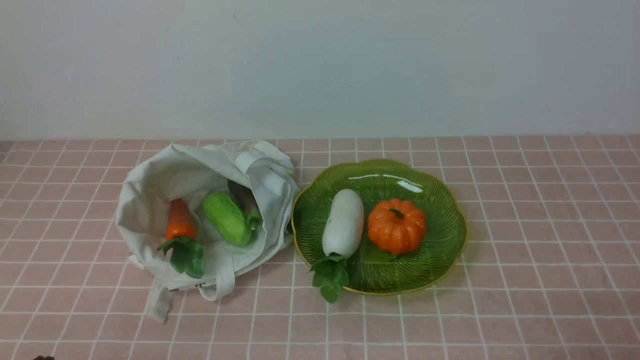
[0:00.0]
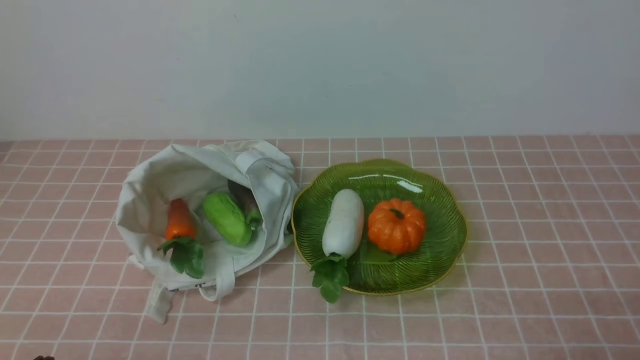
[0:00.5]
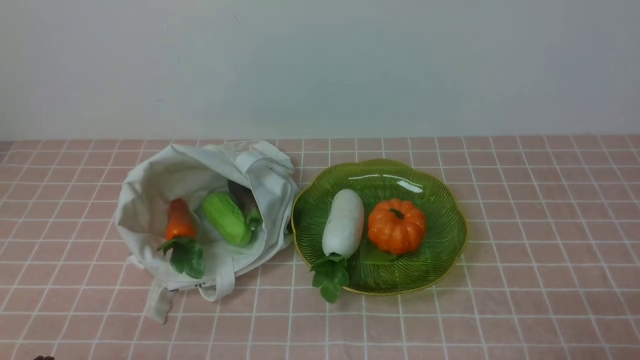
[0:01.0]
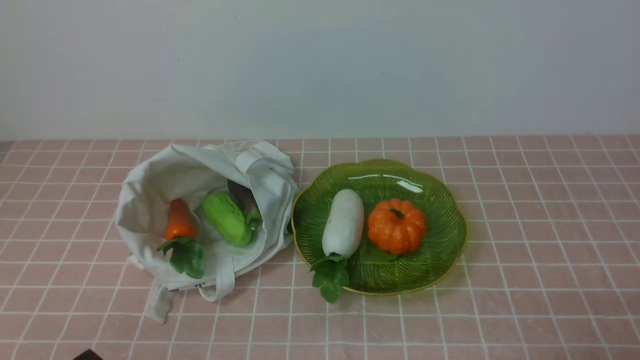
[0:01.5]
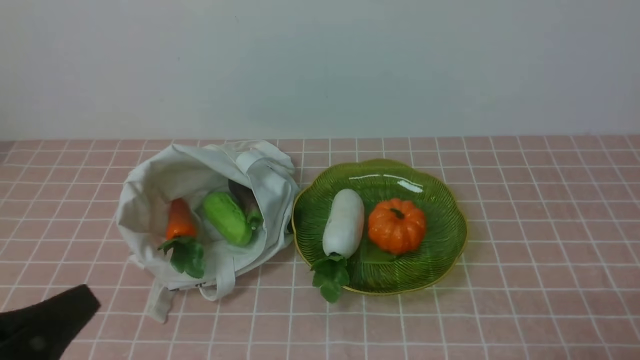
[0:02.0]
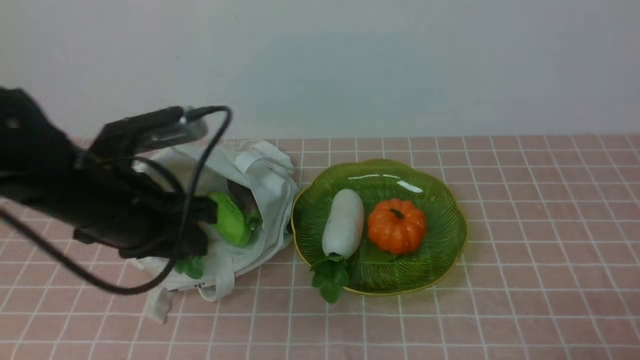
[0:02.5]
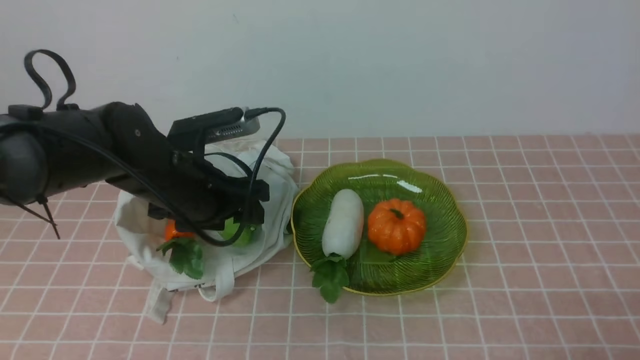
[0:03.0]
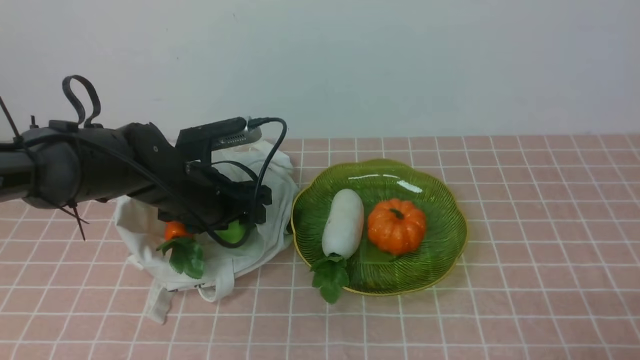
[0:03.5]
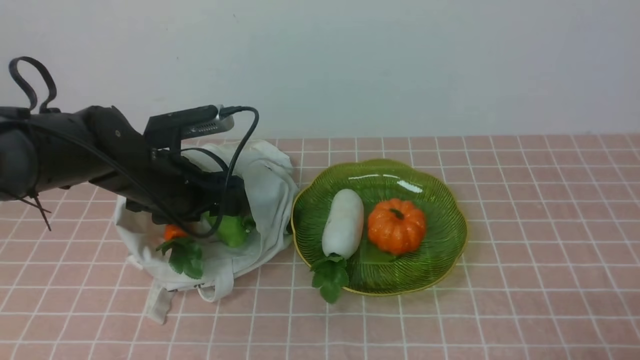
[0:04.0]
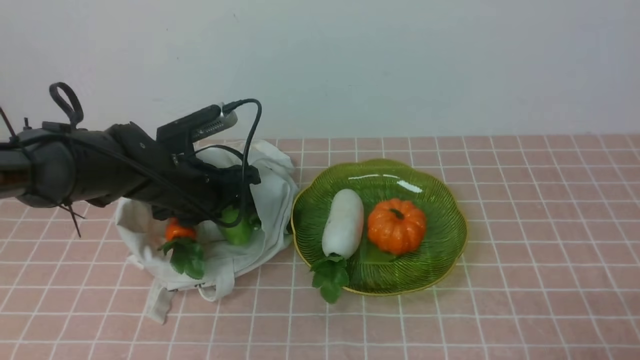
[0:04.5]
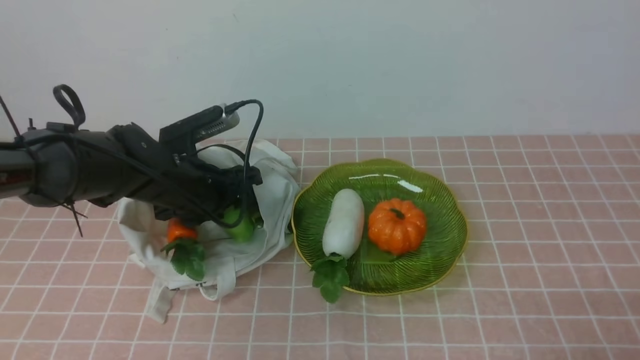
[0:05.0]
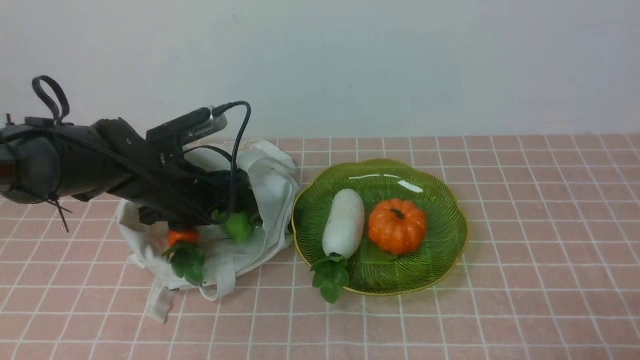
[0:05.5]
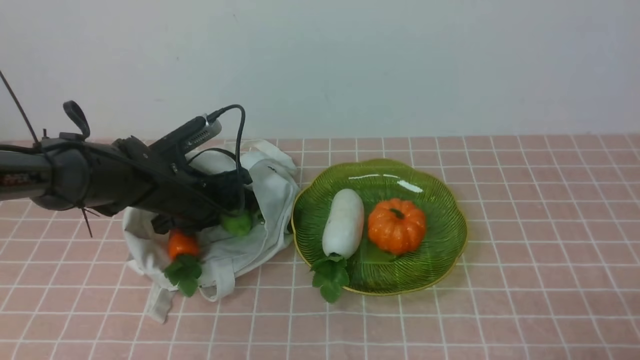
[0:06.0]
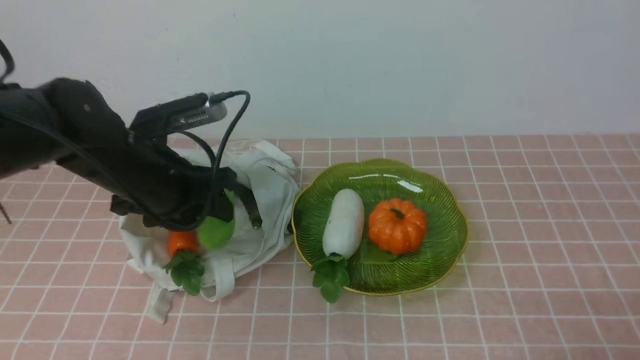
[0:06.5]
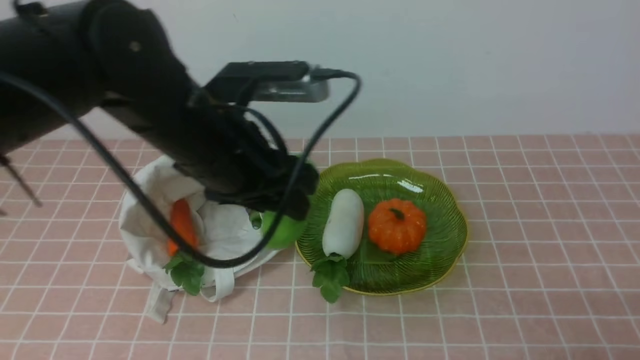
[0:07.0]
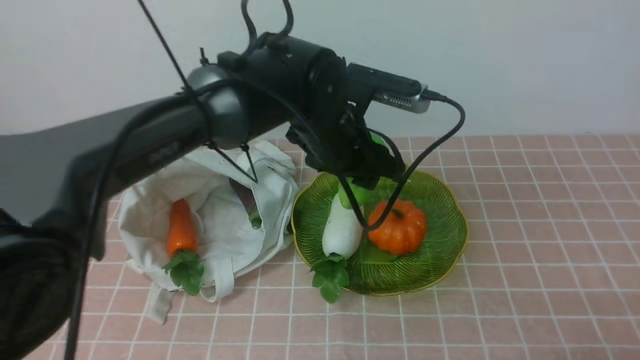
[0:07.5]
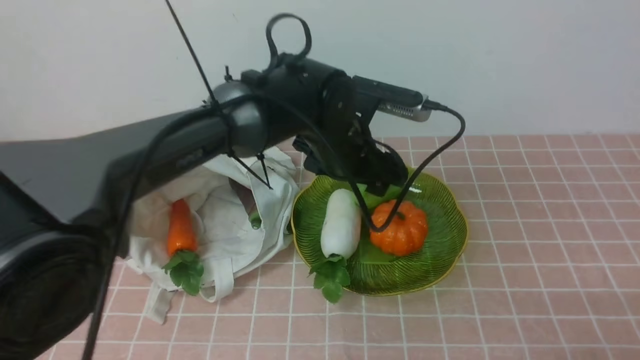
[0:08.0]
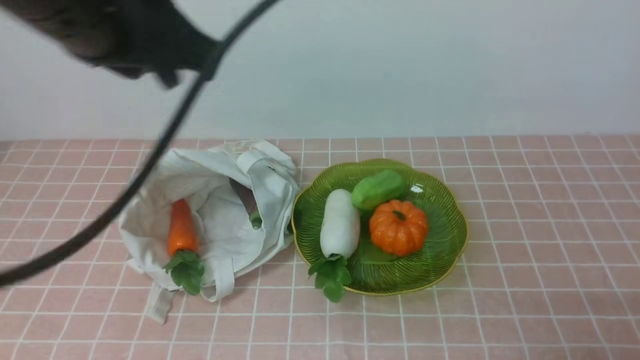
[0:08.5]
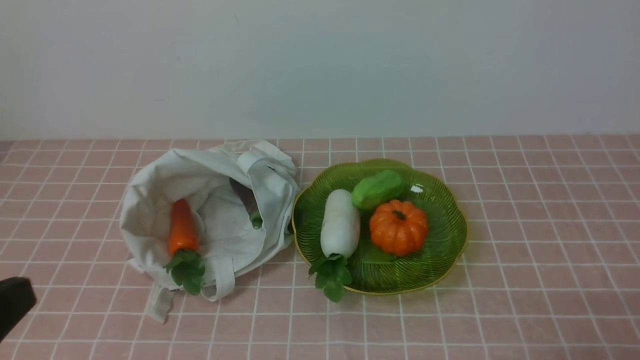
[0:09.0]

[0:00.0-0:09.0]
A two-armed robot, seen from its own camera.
Task of the whole recording: take vegetables from bag on pink coffee tablecloth place on plate.
Step, 0:00.0 to 0:06.0: Grasp the bitter melon with left gripper.
Step, 0:06.5 to 0:08.0: Place the bitter melon on the plate with left gripper.
0:00.0 to 0:02.0: The left gripper heads upward, covering approximately 10 cm.
0:02.0 to 0:04.5: The left gripper is displaced forward by approximately 30 cm, and opens.
0:04.5 to 0:07.0: The left gripper heads upward, to the right and backward, covering about 15 cm.
0:07.0 to 0:09.0: The left gripper moves backward and to the left, approximately 30 cm, and closes up.

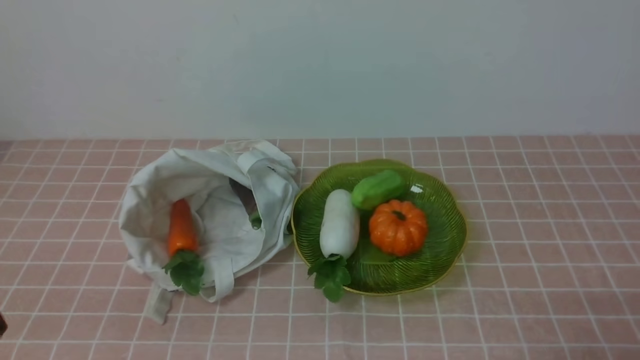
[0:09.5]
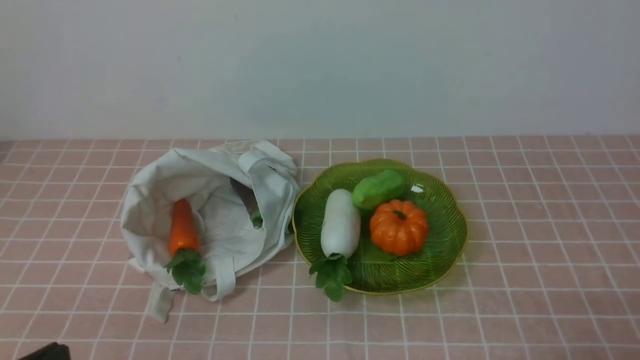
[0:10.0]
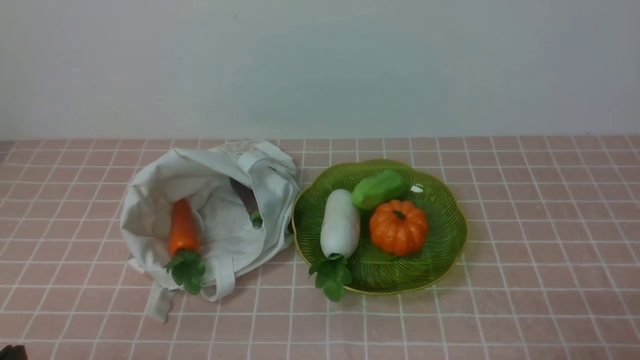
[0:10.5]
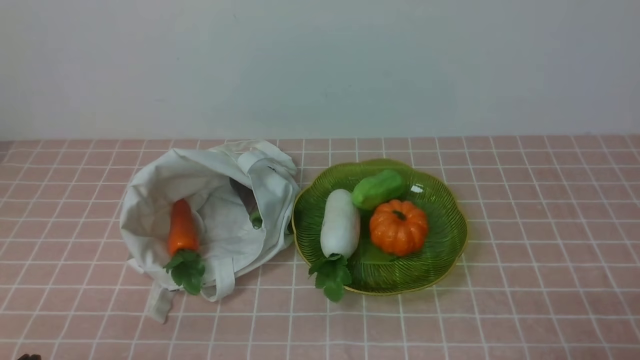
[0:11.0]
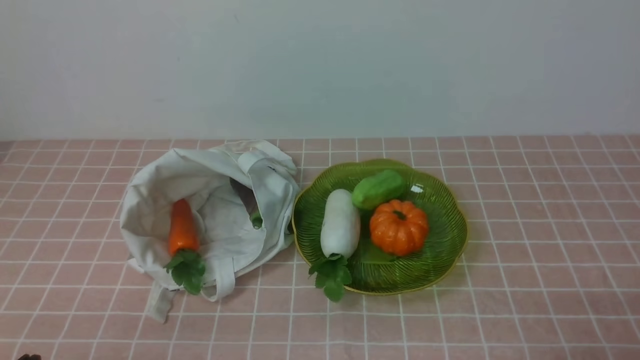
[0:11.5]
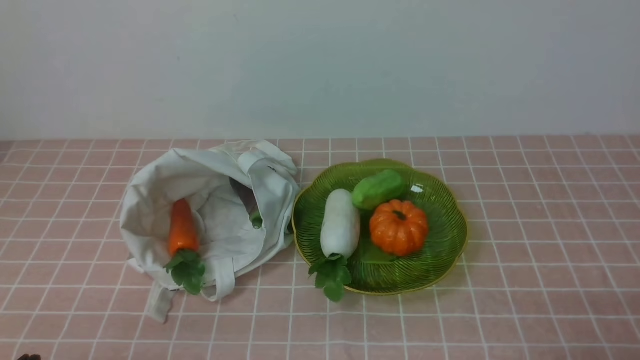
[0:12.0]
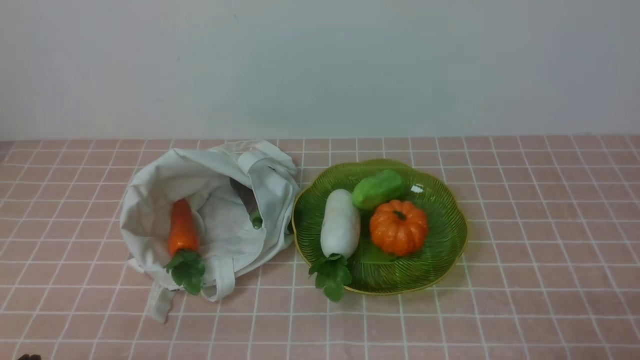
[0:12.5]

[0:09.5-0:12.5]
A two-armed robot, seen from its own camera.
Task of the whole recording: take vegetables from bag on pink coffee tablecloth place on plate.
0:11.0 to 0:12.5: Neither gripper changes place.
